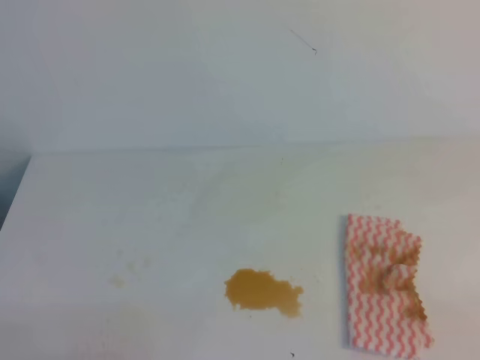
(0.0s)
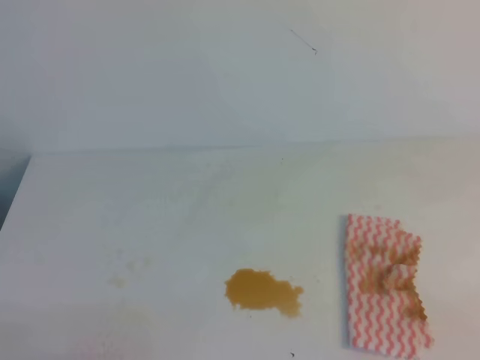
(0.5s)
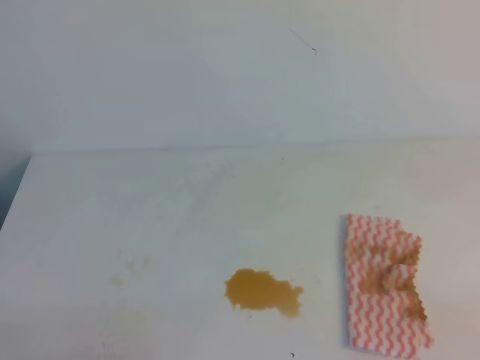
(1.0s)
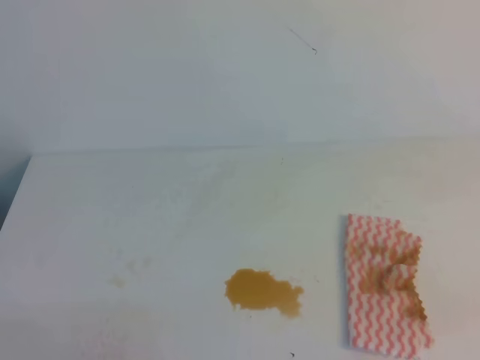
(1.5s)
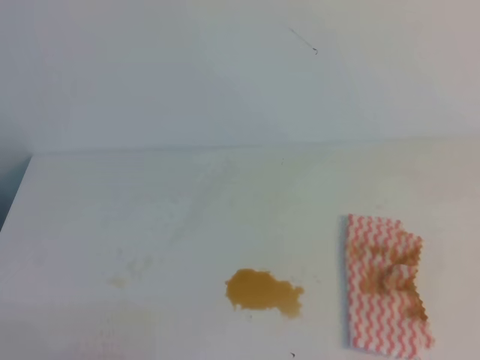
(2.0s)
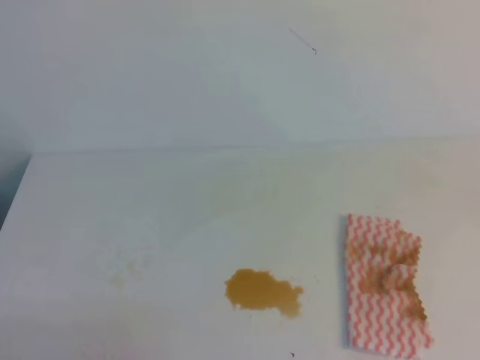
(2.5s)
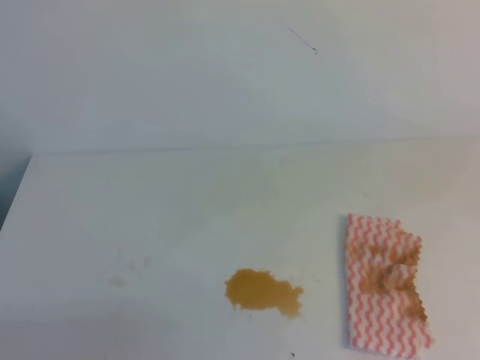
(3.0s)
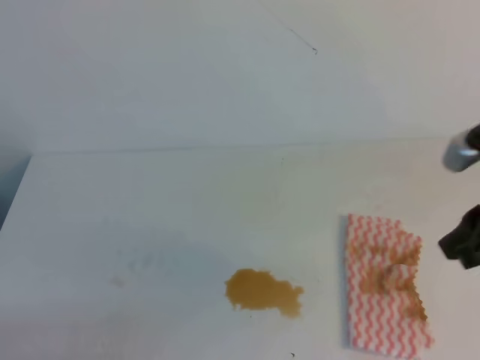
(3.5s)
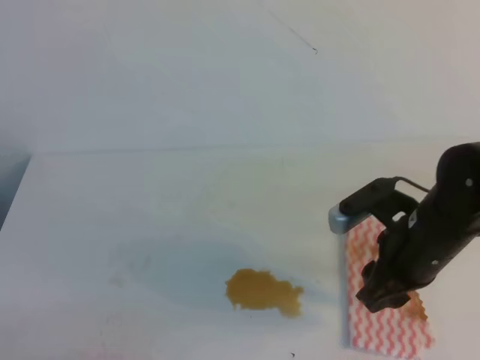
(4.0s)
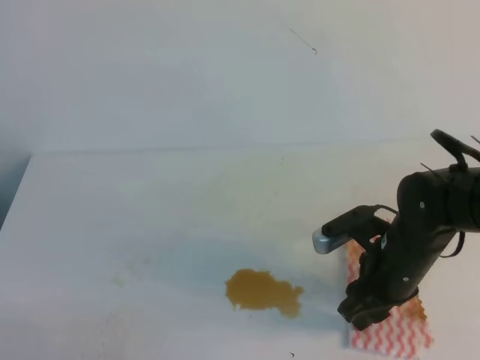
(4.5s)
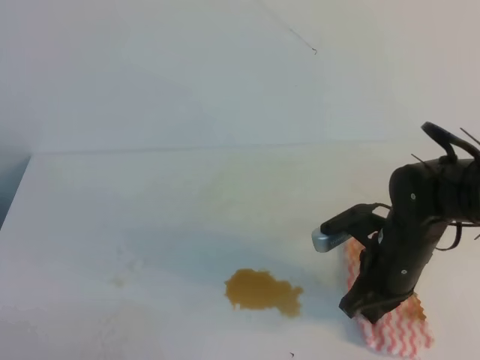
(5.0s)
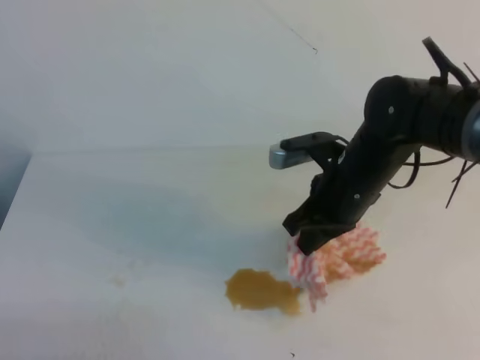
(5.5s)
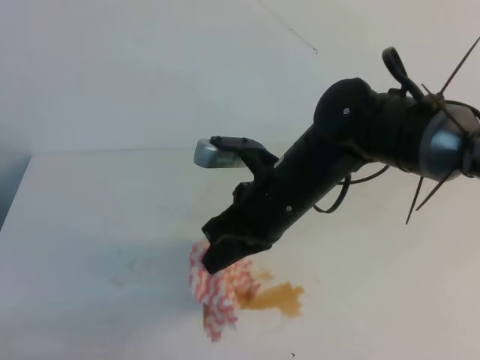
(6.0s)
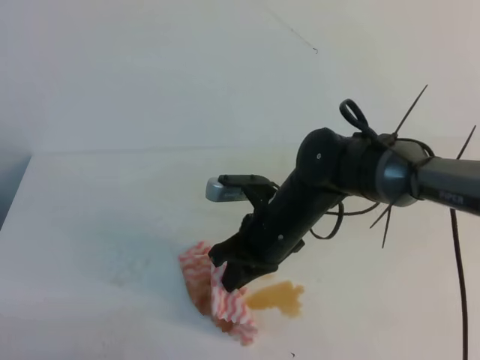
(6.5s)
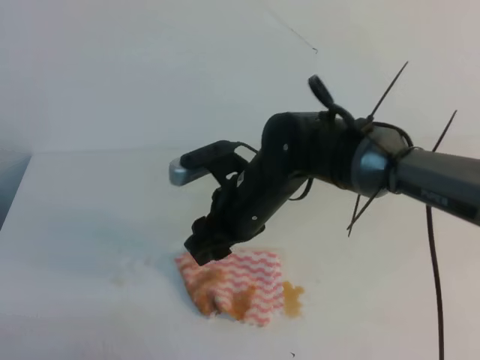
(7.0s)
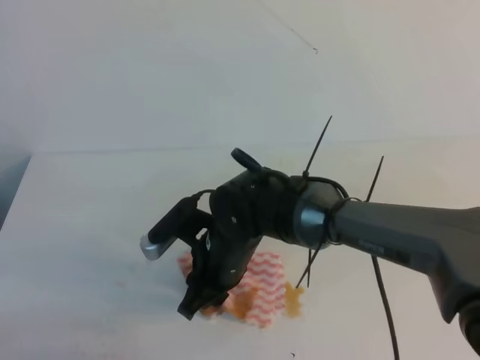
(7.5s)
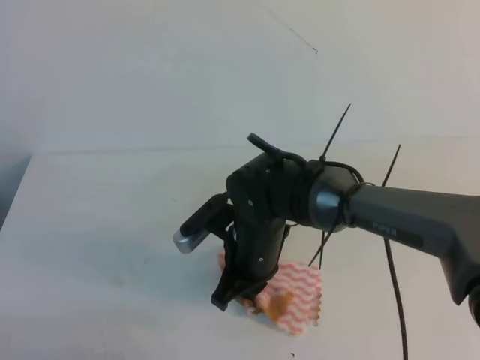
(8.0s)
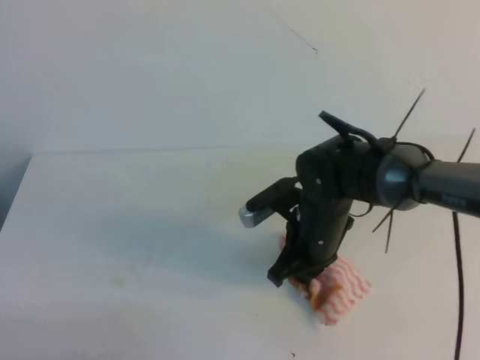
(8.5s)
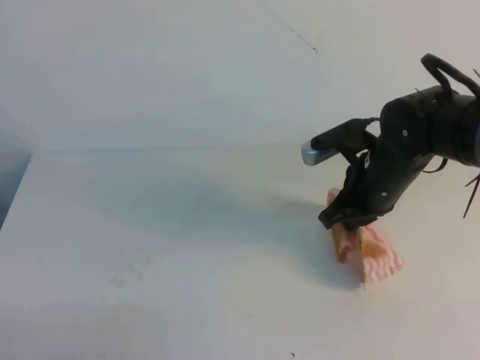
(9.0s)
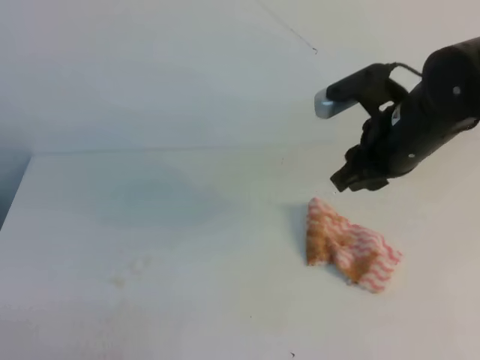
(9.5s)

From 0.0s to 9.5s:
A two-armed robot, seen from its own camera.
From 2.0s to 4.0s: The right gripper heads forward and to the left, covering roughly 30 cm, and opens.
From 4.0s to 5.5s: The right gripper heads to the left and forward, covering roughly 10 cm, and closes up.
From 5.5s to 7.5s: The right gripper shifts some 15 cm to the left, and opens its fingers.
From 7.5s to 9.5s: The right gripper travels to the right and upward by roughly 20 cm, and closes and opens again.

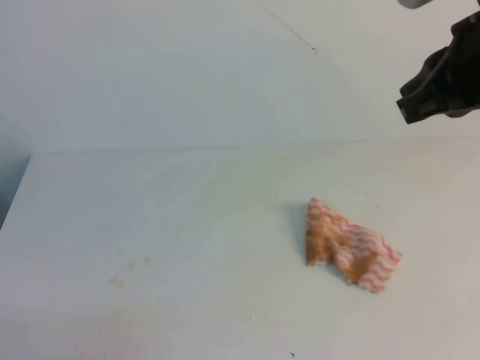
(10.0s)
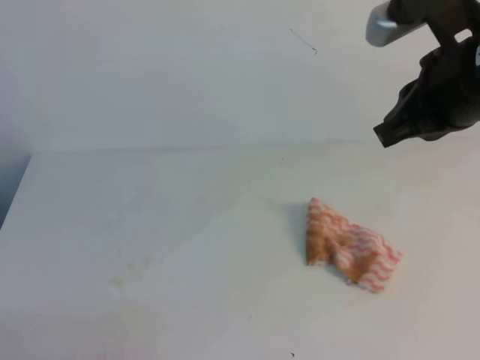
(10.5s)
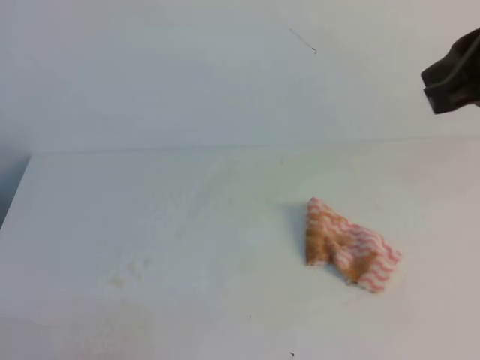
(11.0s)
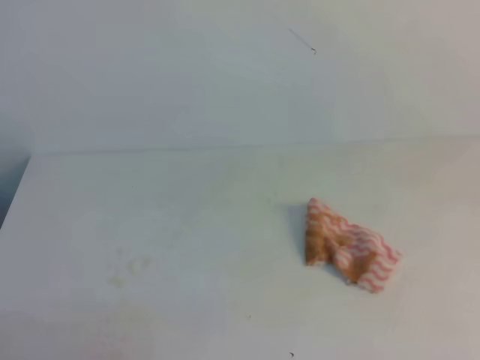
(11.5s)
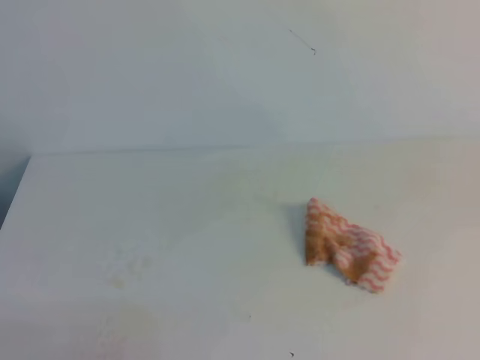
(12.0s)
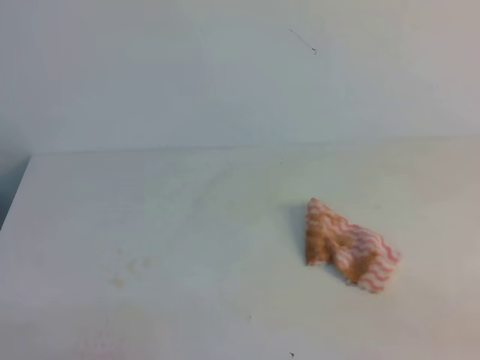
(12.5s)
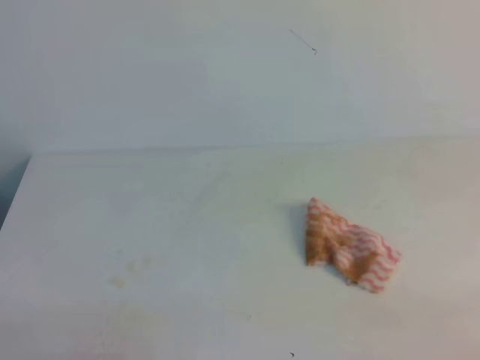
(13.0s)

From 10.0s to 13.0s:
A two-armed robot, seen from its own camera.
From 10.0s to 11.5s: The right gripper moves backward, upward and to the right, approximately 25 cm.
